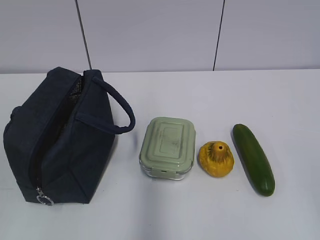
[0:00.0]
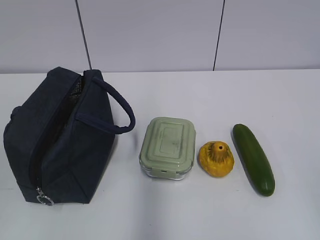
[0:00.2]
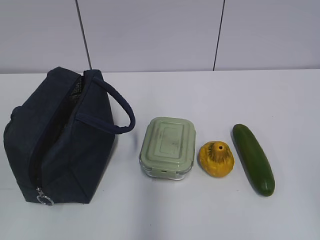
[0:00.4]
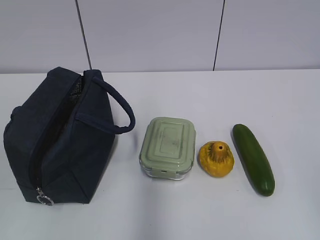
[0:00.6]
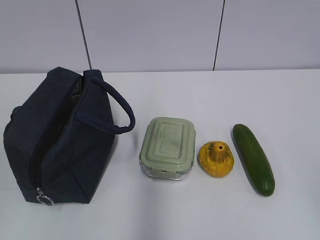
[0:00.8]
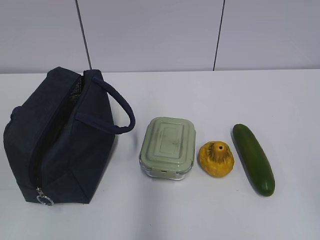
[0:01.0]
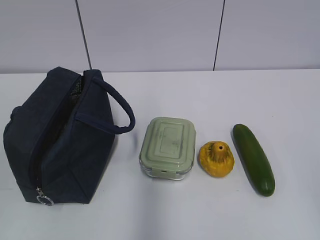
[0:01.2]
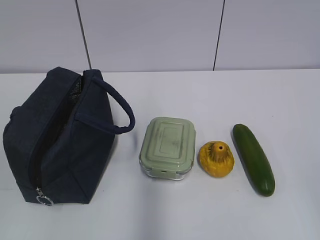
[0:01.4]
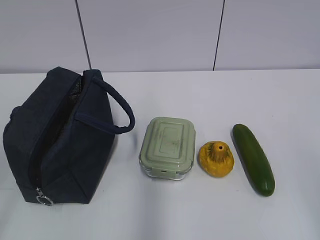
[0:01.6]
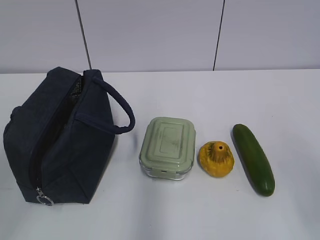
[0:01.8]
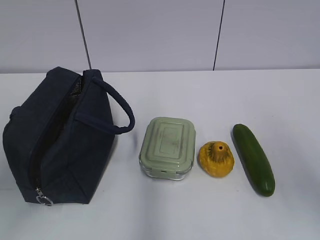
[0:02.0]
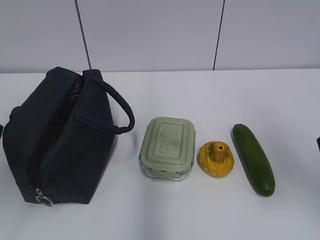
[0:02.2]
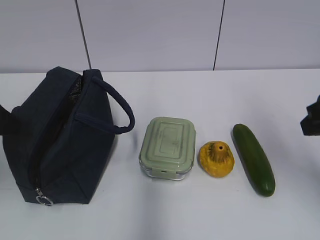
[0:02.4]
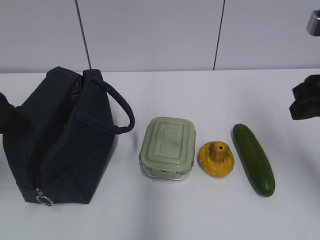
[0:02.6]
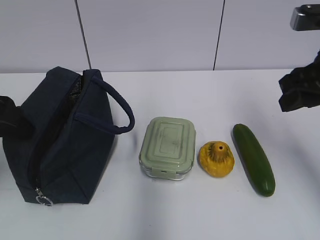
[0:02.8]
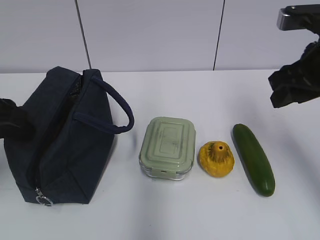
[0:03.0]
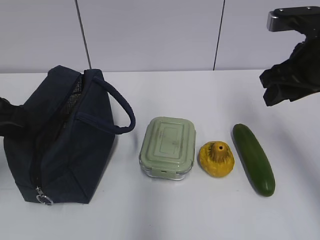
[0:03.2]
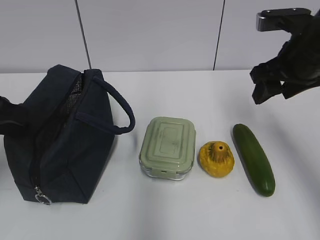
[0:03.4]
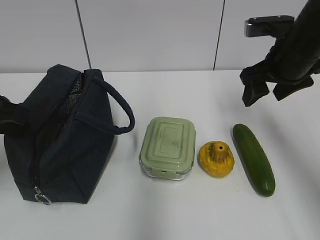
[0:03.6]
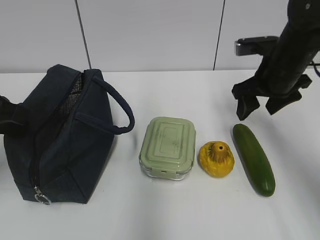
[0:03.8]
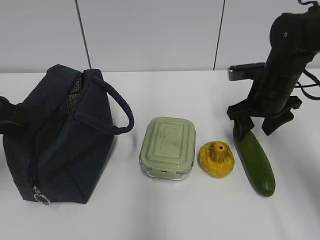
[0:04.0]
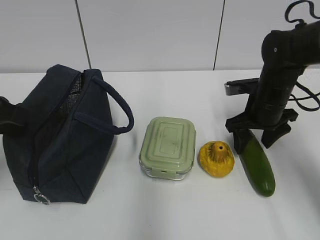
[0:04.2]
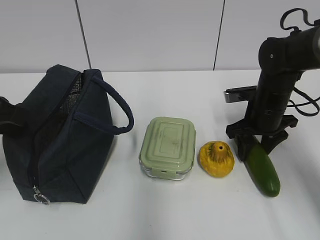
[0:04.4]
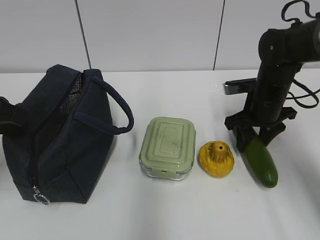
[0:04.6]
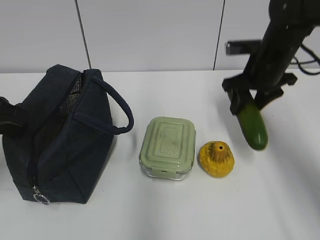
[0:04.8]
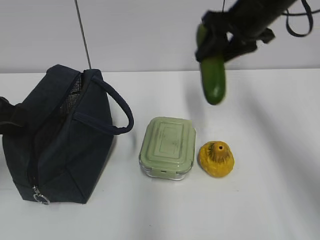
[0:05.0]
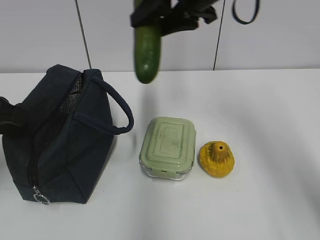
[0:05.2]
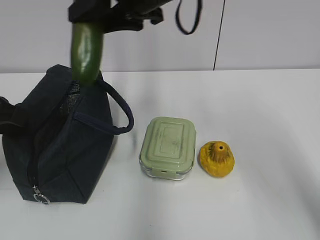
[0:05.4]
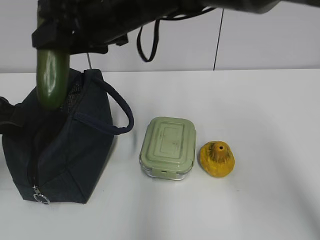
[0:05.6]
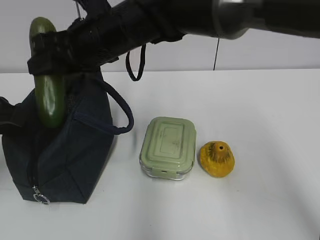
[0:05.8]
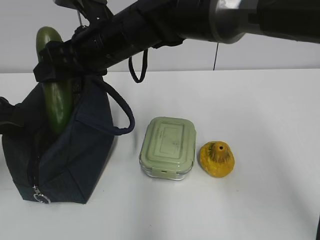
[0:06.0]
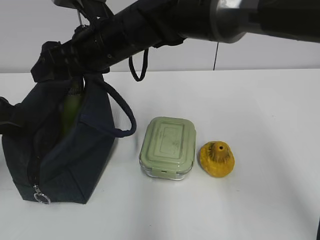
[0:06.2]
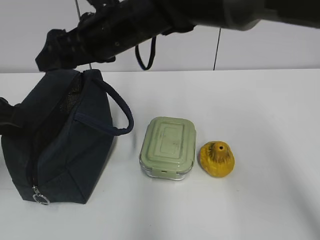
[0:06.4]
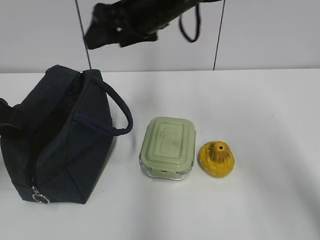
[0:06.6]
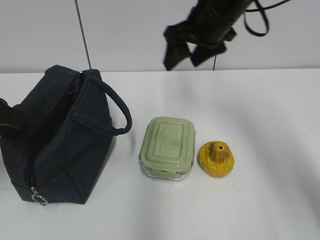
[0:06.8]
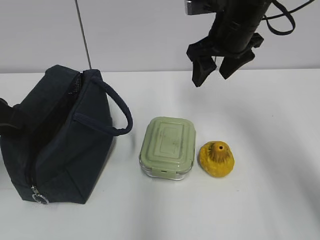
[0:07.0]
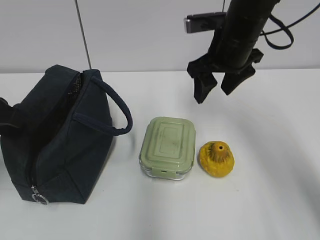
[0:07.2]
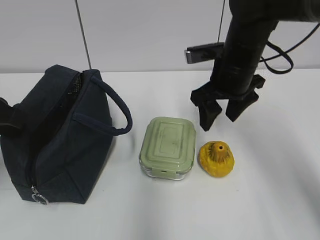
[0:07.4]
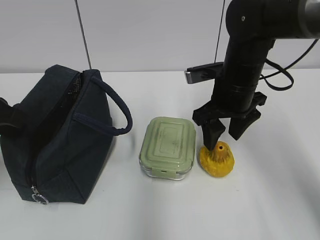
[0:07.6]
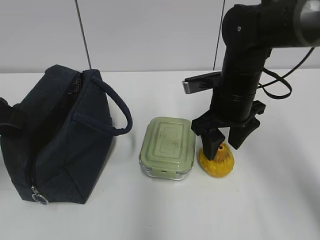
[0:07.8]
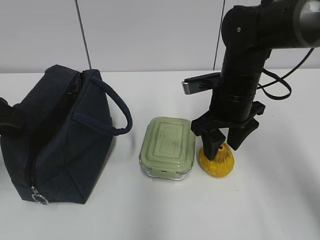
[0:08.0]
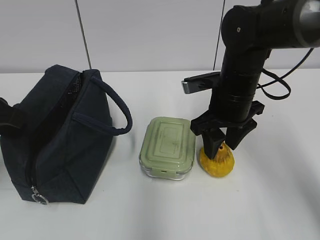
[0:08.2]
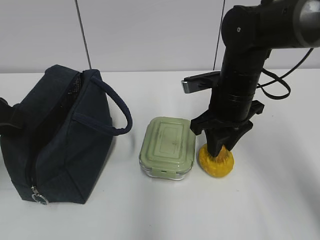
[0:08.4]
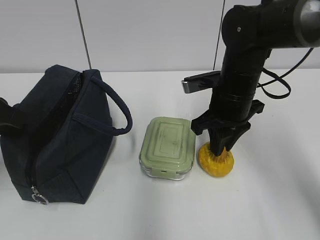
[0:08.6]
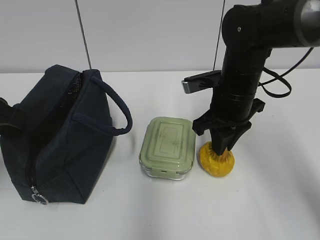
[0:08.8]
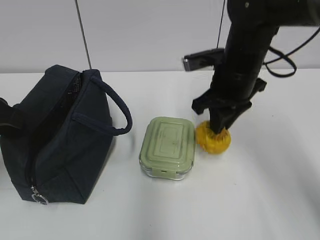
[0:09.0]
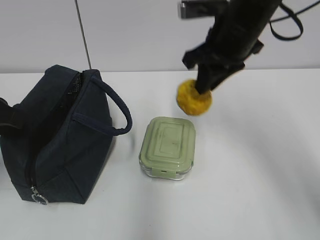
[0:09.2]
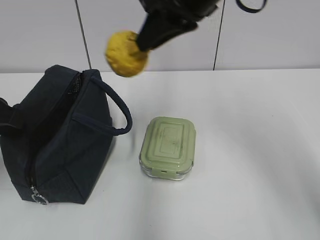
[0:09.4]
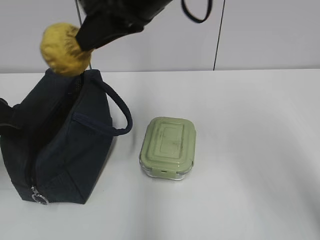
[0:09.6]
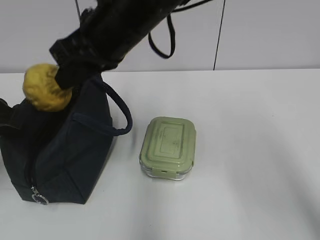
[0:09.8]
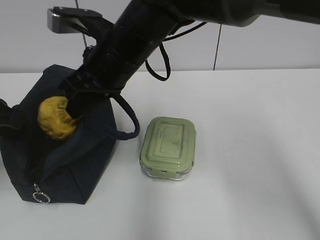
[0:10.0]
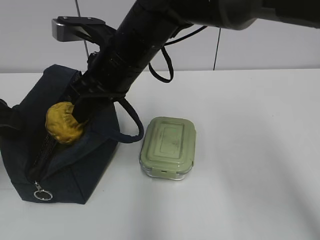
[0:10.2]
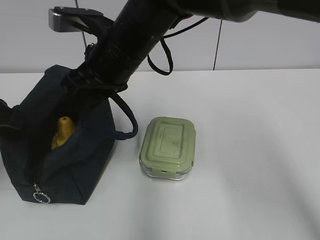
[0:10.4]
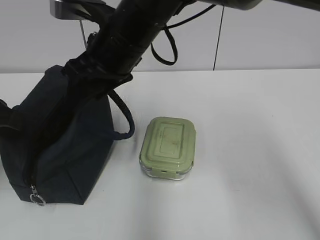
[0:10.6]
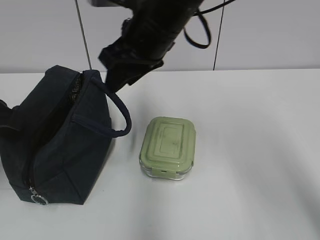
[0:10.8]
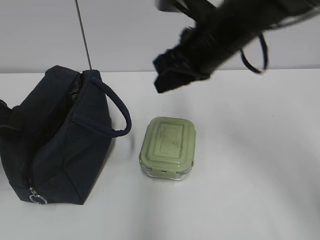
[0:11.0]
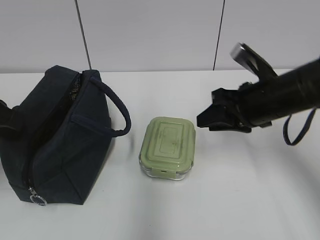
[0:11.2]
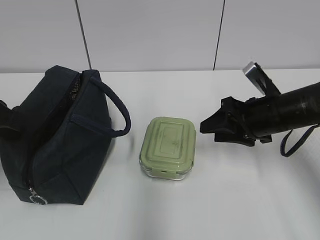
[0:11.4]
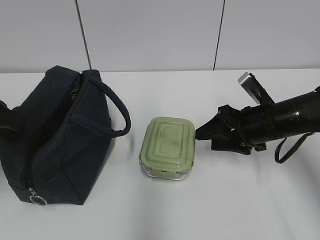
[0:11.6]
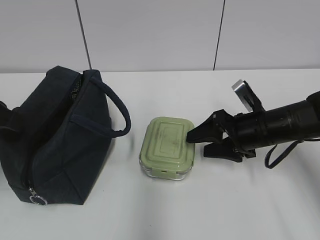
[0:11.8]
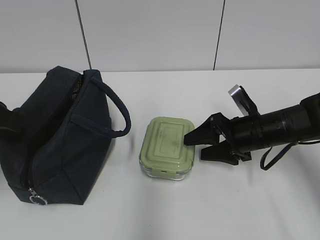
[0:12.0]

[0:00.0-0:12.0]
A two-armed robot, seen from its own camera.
0:01.6 to 0:03.0: Both grippers travel together forward, some 25 cm.
0:03.0 to 0:04.4: The left gripper closes; the right gripper shifts approximately 20 cm downward and forward.
0:04.4 to 0:06.0: The right gripper is displaced to the left and upward by roughly 30 cm.
0:06.0 to 0:07.6: The right gripper shifts some 20 cm to the right.
0:07.6 to 0:09.0: The right gripper closes.
0:09.0 to 0:10.4: The right gripper moves to the left, about 15 cm, and opens up.
0:10.4 to 0:12.0: The right gripper shifts approximately 30 cm to the right and downward.

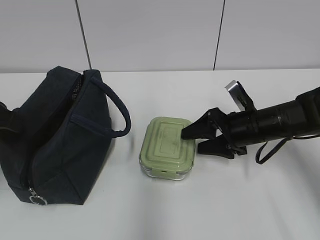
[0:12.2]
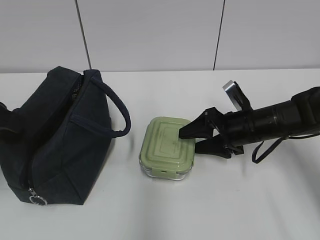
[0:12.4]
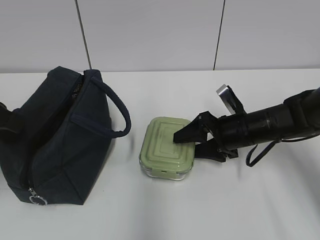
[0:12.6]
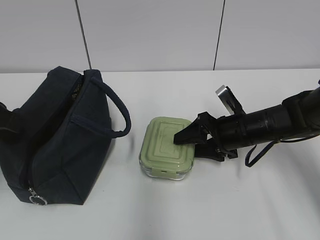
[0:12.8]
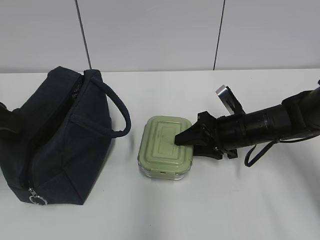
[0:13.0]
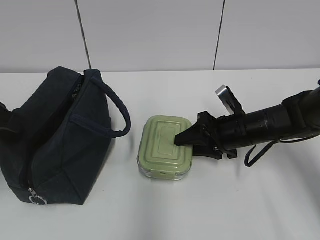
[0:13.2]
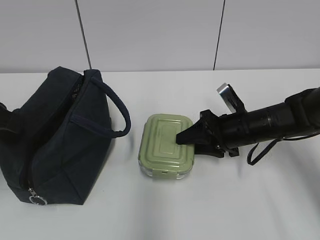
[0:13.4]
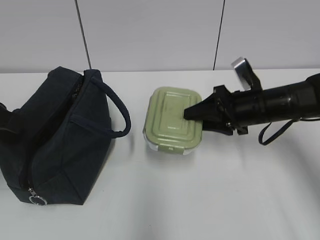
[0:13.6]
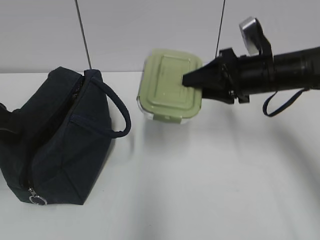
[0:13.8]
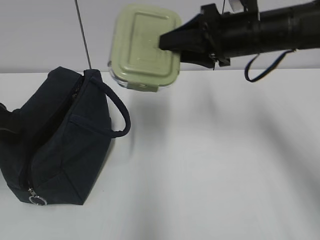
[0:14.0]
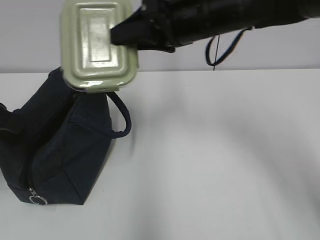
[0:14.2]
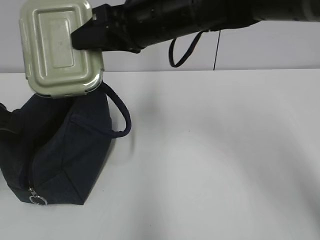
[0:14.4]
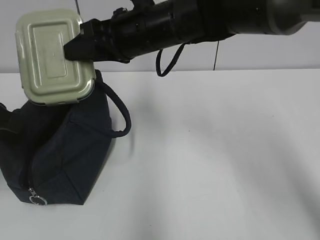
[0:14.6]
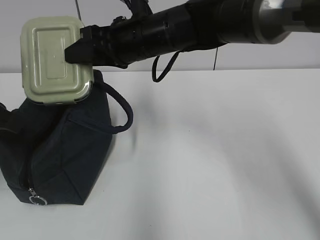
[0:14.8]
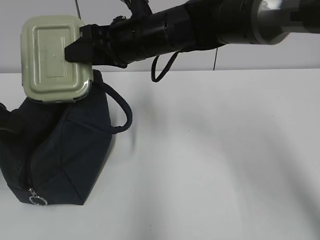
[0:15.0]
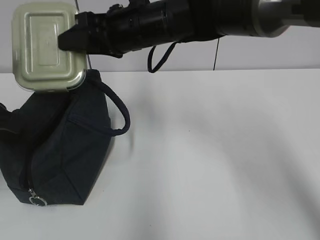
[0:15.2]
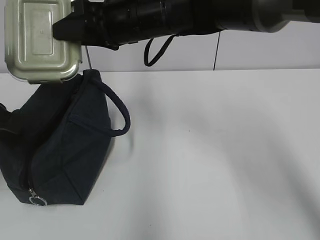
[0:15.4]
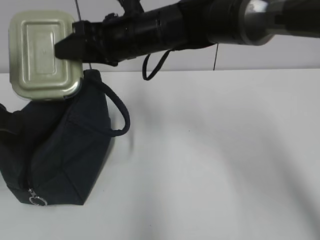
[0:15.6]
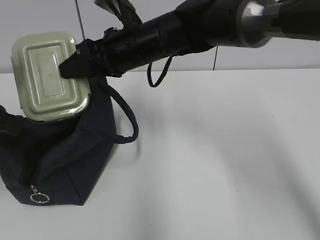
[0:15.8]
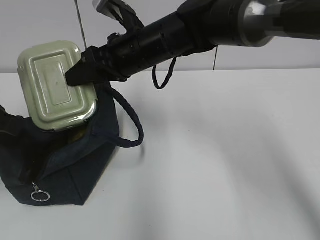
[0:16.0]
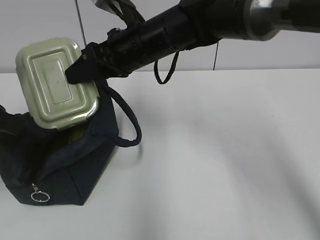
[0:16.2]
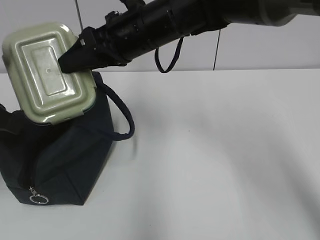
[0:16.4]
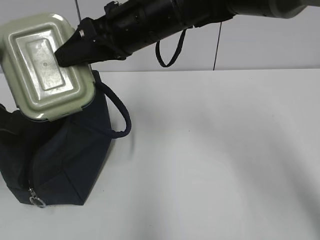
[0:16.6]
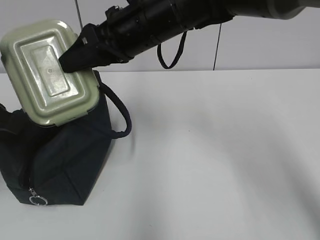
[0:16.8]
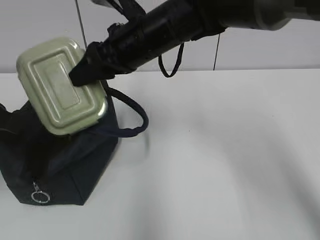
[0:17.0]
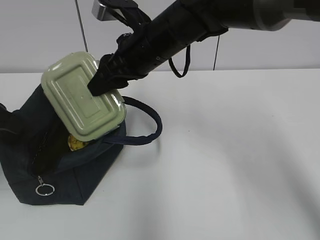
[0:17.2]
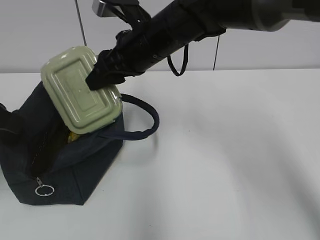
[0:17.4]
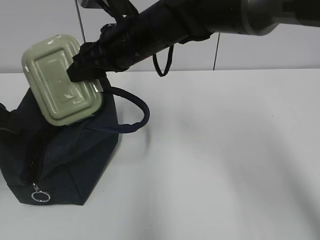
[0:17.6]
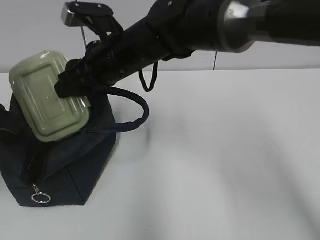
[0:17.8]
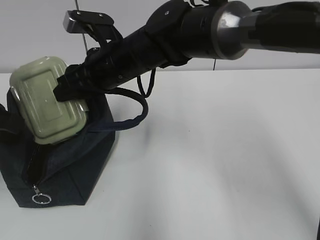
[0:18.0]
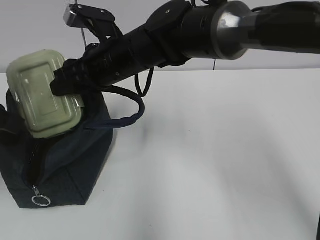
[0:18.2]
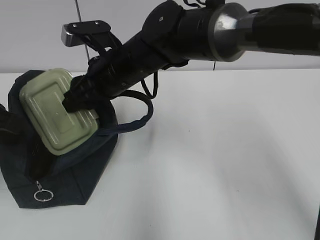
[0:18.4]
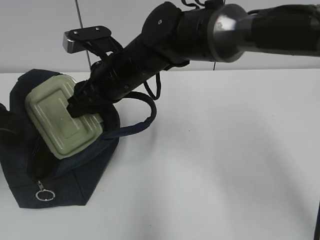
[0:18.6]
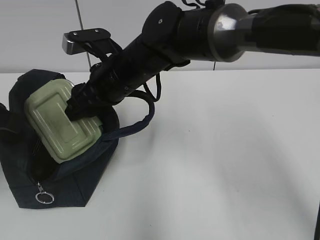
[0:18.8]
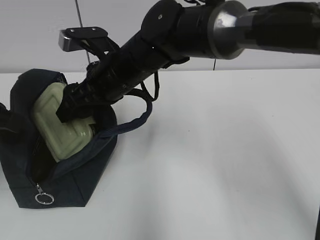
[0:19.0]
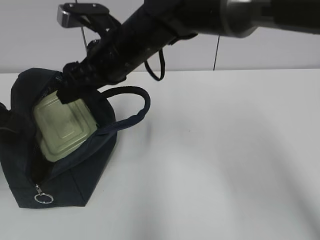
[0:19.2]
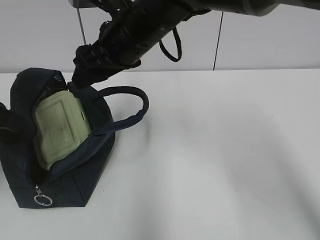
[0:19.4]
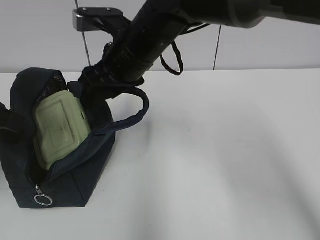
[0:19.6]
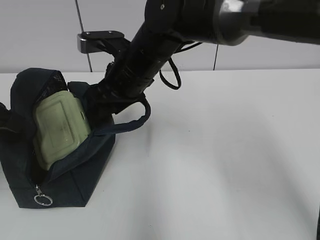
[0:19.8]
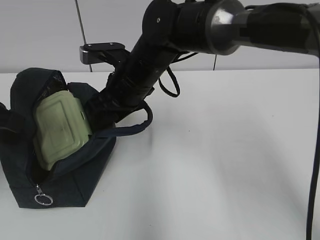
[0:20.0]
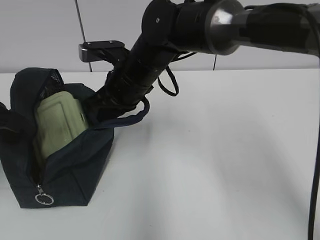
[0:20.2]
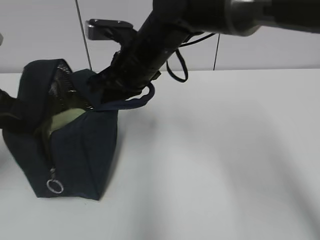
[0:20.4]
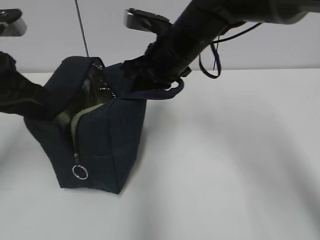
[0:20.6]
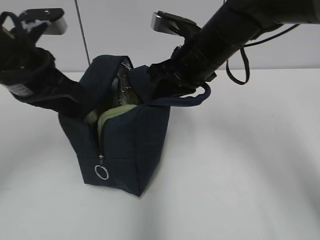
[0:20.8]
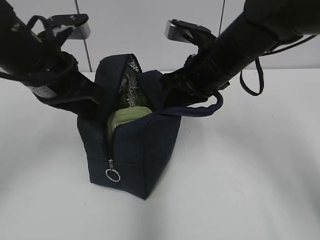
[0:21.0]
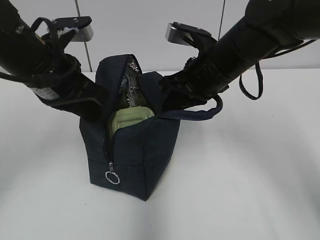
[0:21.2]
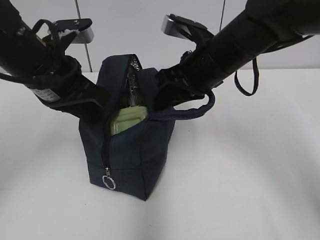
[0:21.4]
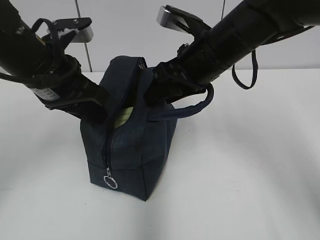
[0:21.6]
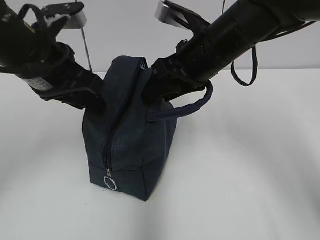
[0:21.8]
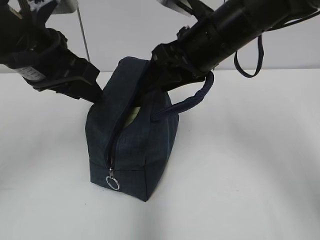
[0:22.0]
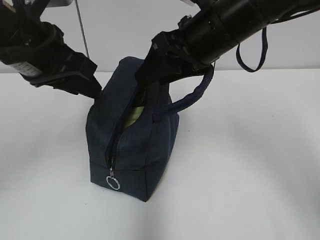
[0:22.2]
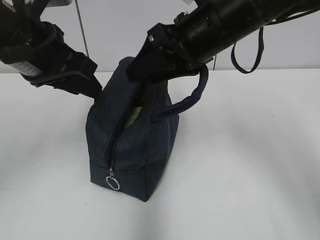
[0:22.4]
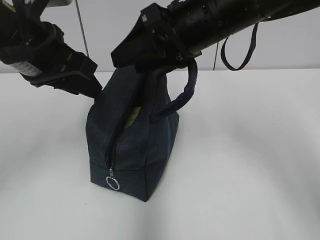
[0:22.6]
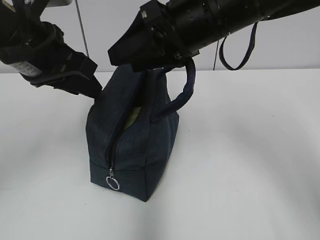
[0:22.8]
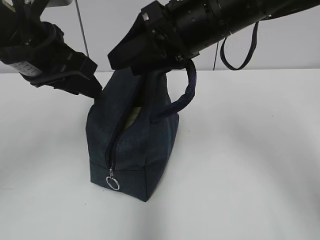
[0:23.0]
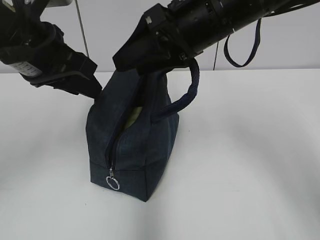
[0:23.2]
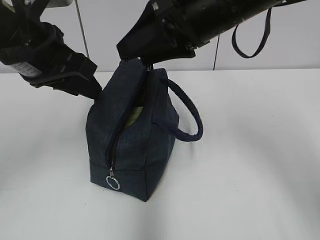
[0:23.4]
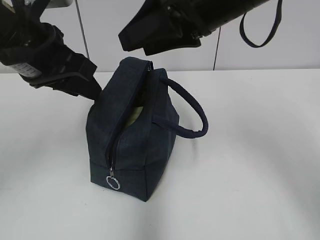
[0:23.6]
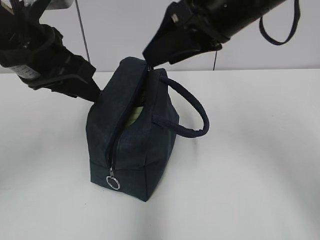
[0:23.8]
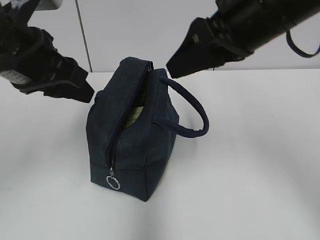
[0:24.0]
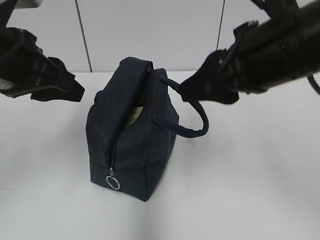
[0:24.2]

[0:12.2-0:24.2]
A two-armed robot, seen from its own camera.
0:12.2 to 0:13.8: The right gripper goes roughly 10 cm upward, and closes its fingers.
0:13.8 to 0:15.2: The right gripper shifts roughly 20 cm to the left.
0:15.2 to 0:16.6: There are only small adjustments of the grippers.
0:16.6 to 0:18.2: The right gripper travels downward by some 5 cm.
0:19.8 to 0:21.2: The right gripper moves to the right, about 10 cm, and closes; the left gripper travels to the right and forward by some 10 cm.
0:21.2 to 0:22.6: The left gripper opens up. Meanwhile the right gripper shifts about 10 cm upward, and opens up.
0:22.6 to 0:24.2: The right gripper moves backward and to the right, some 10 cm.
